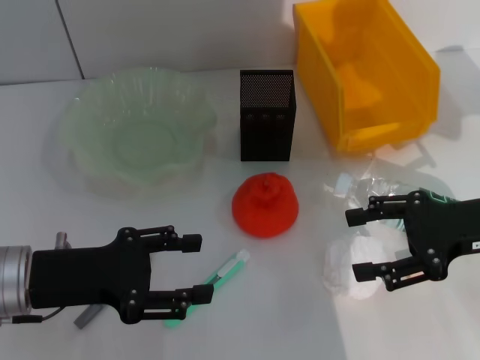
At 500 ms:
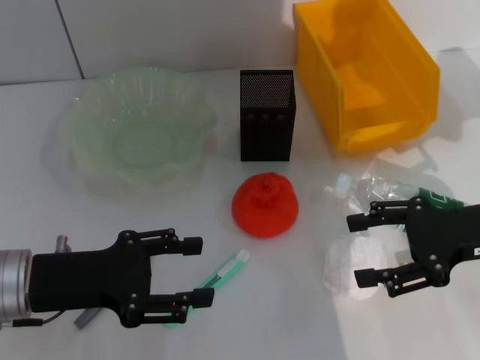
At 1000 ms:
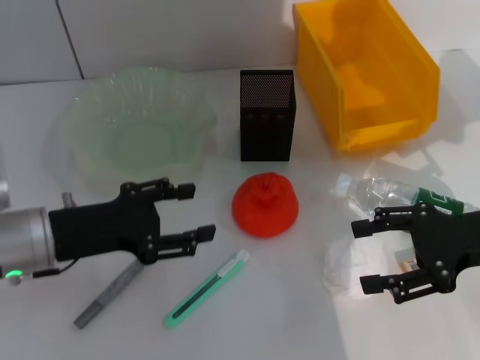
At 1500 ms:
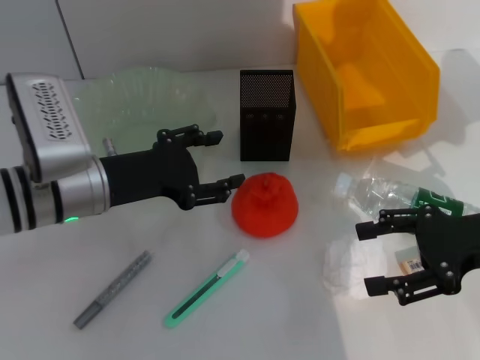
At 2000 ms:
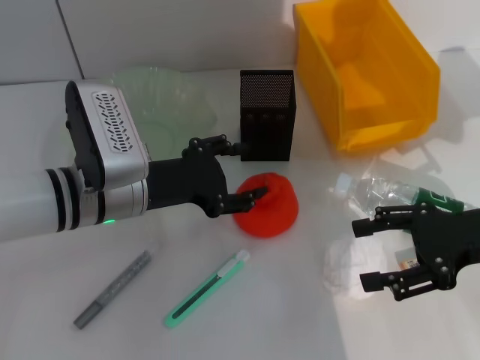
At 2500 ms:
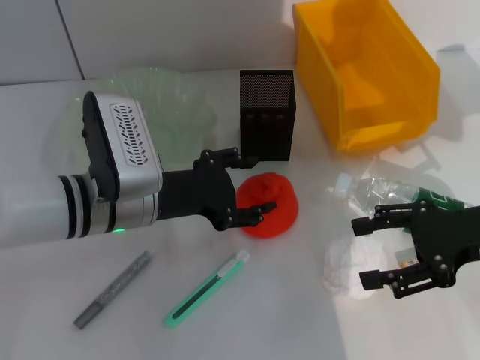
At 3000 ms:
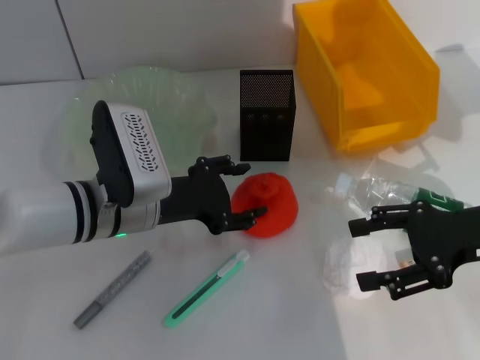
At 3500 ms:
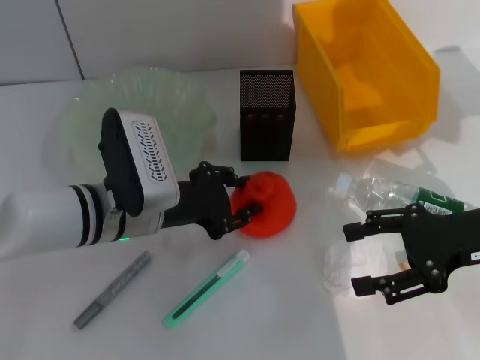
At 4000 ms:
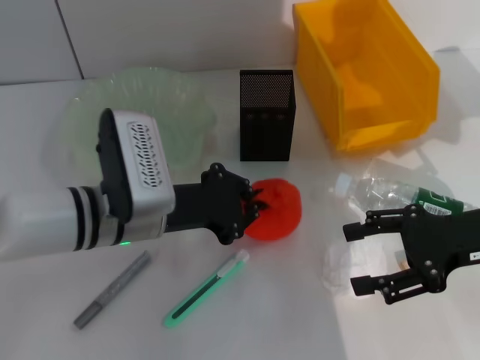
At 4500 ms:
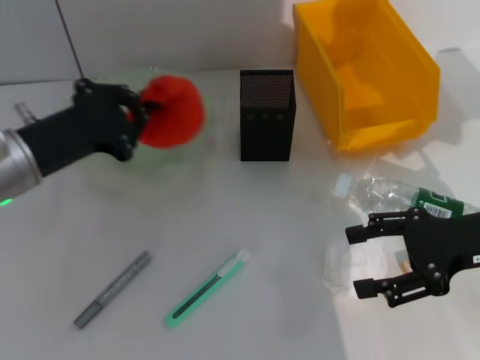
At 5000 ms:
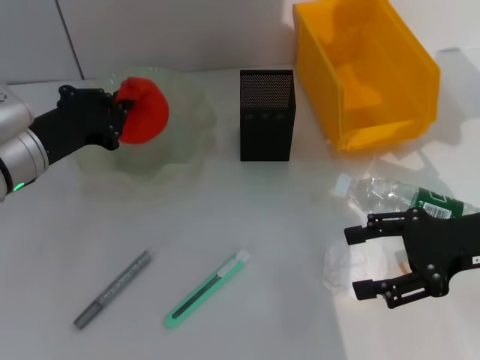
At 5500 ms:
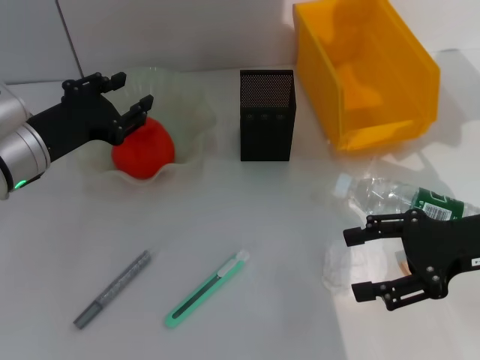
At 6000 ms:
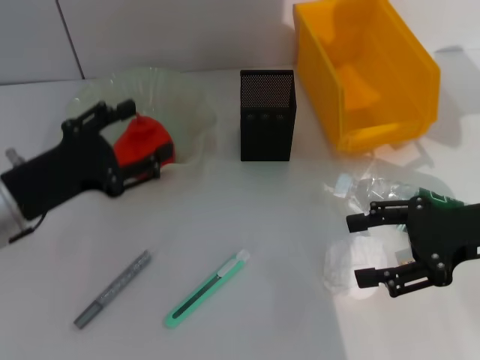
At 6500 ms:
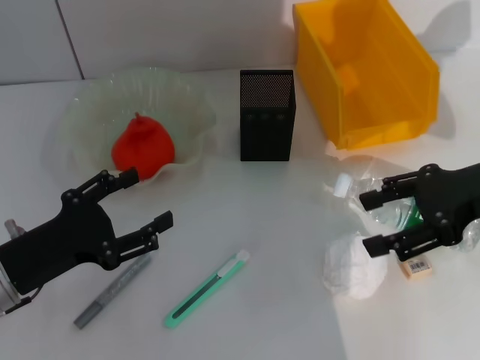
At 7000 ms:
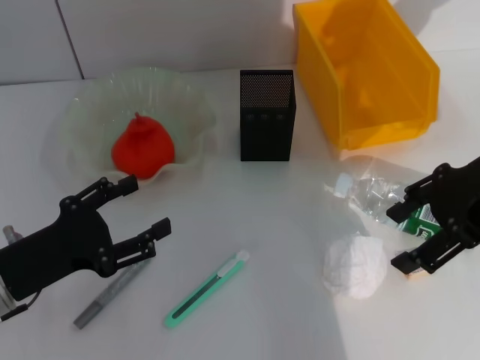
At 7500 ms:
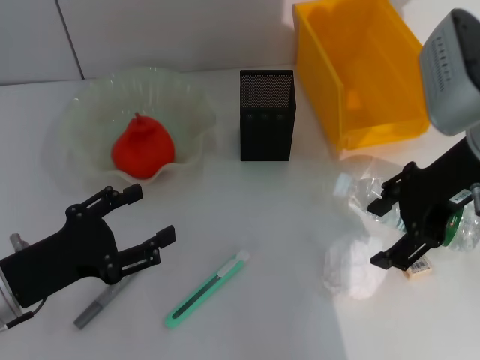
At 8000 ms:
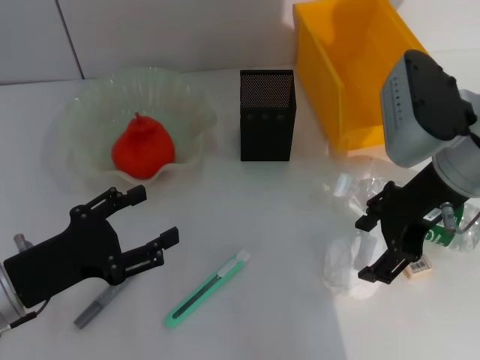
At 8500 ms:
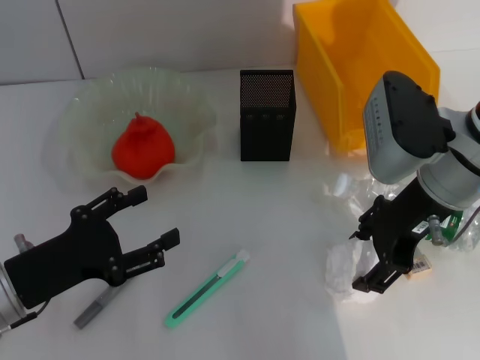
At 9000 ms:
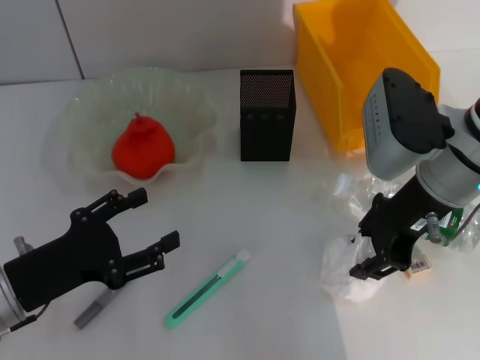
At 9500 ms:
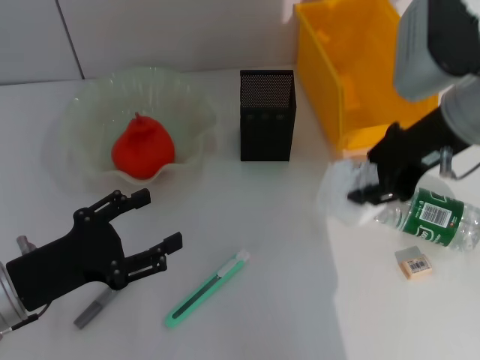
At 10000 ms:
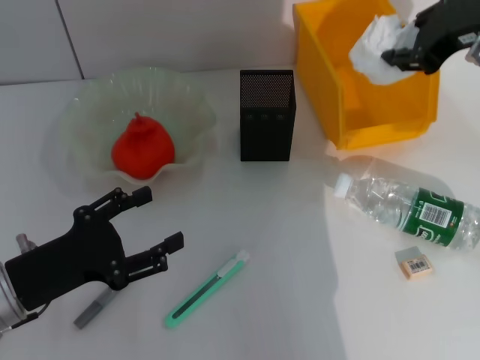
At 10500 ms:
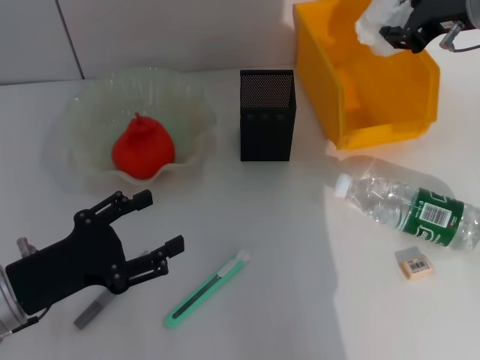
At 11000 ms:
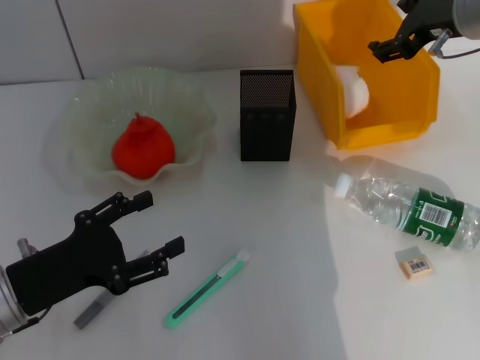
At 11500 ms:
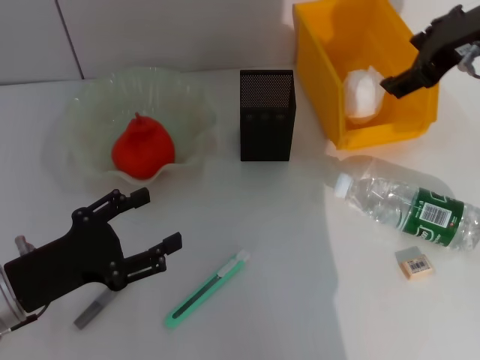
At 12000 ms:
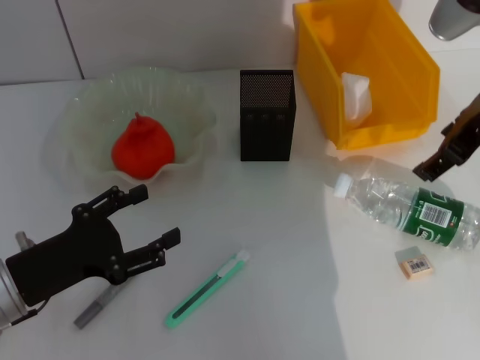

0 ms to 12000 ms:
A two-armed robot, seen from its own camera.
Step, 0 ms to 3500 ms: Grab the orange with the left hand.
Step, 4000 ms to 5000 ms: Place the orange into the fruit bowl with the left hand.
Step, 5500 ms to 8500 ms: Grab the paper ball with the right hand.
Step, 9000 ms to 11000 ms: Place the paper ball into the trash can with the right hand.
0 ms to 2000 ms: The left gripper heads to the right and forward, covering about 10 cm.
2000 ms to 4000 ms: The left gripper closes.
4000 ms to 6000 ms: The left gripper moves to the left, about 10 cm, and opens its fingers.
6000 ms to 8000 ms: The right gripper is displaced to the left, upward and forward by roughly 10 cm. The left gripper shifts some 5 cm backward.
8000 ms to 10000 ms: The right gripper heads upward and forward, covering about 10 cm, and closes its fingers.
10000 ms to 12000 ms: The right gripper opens.

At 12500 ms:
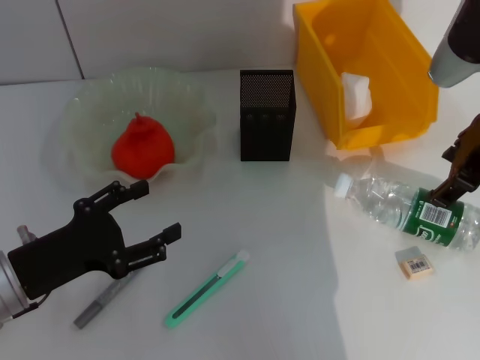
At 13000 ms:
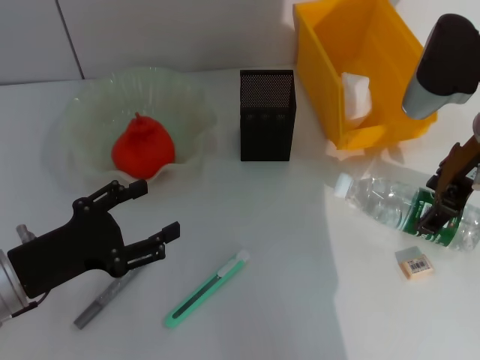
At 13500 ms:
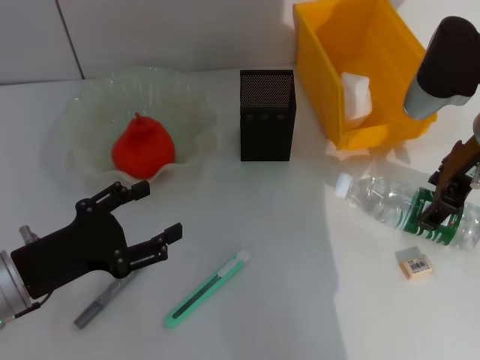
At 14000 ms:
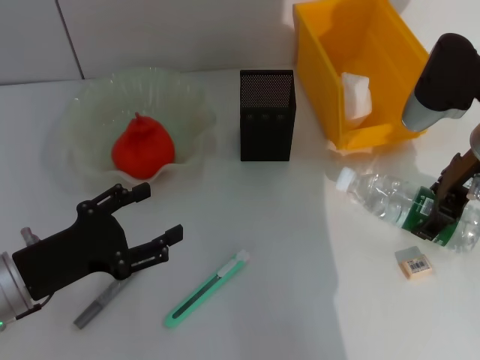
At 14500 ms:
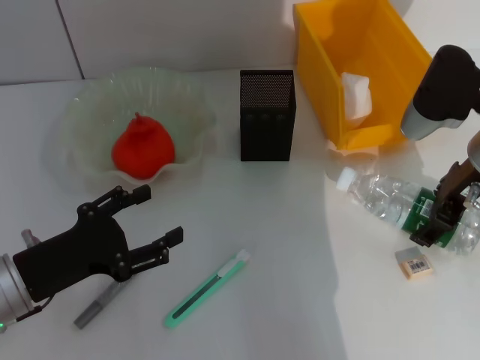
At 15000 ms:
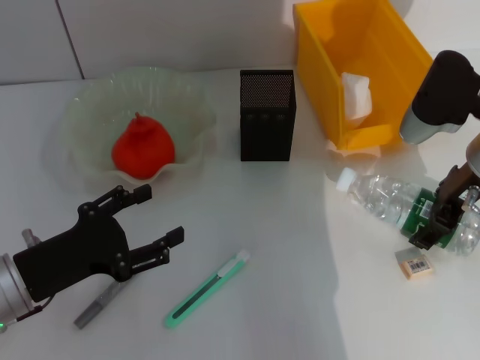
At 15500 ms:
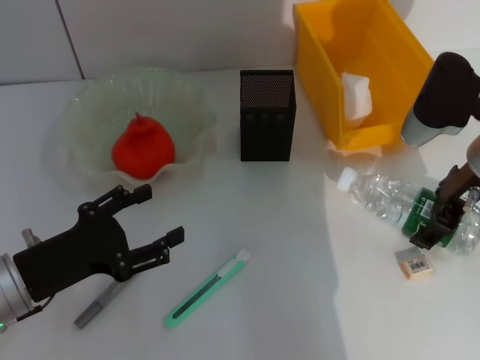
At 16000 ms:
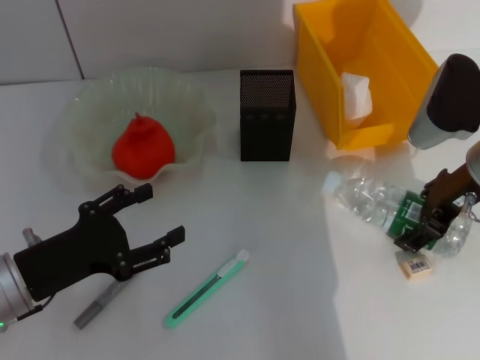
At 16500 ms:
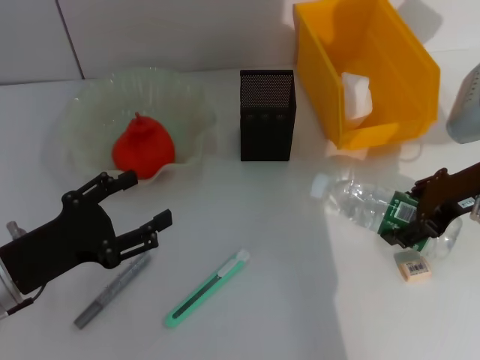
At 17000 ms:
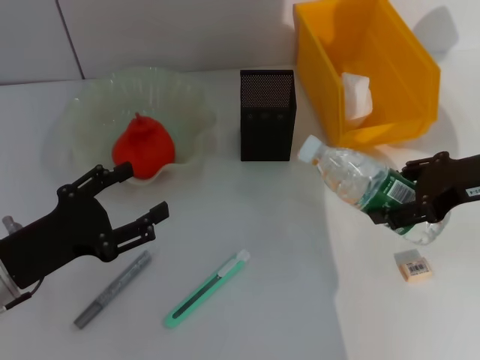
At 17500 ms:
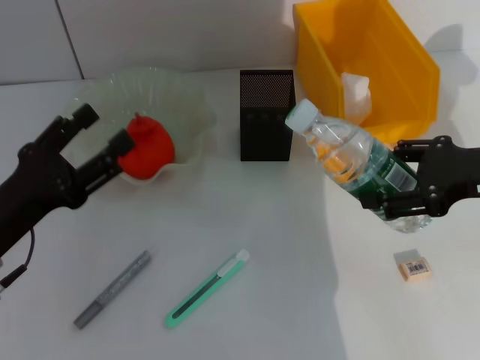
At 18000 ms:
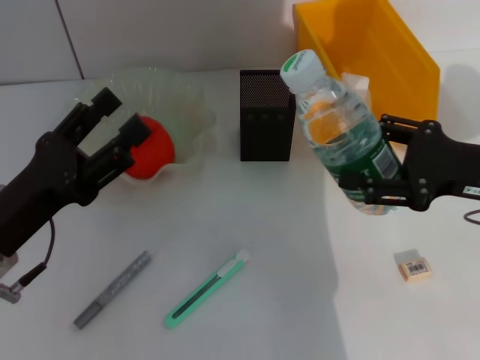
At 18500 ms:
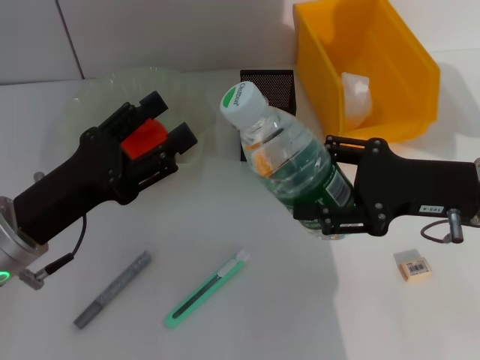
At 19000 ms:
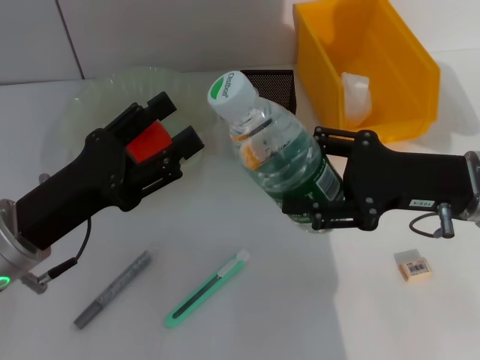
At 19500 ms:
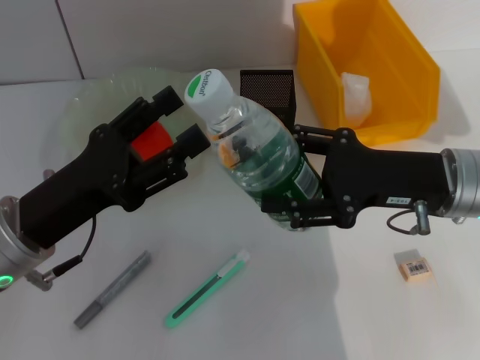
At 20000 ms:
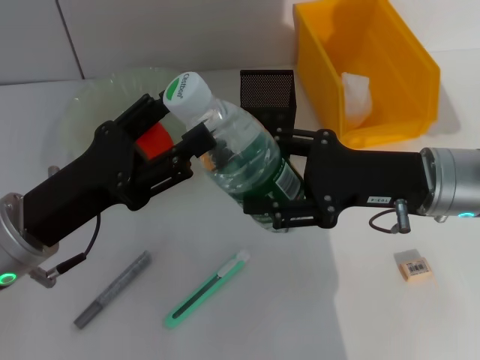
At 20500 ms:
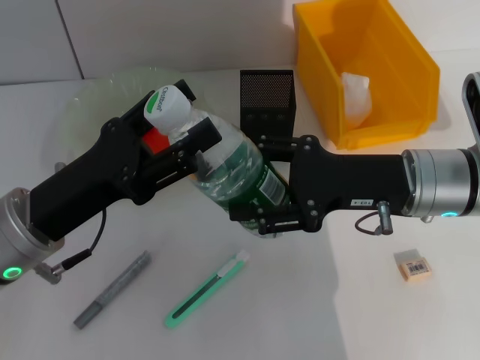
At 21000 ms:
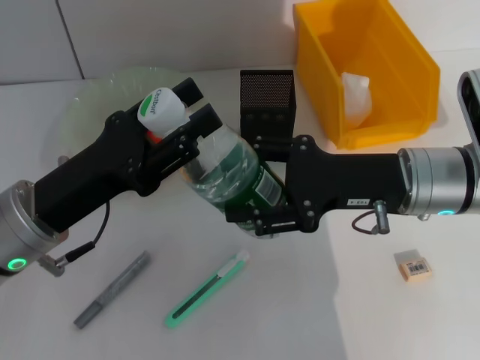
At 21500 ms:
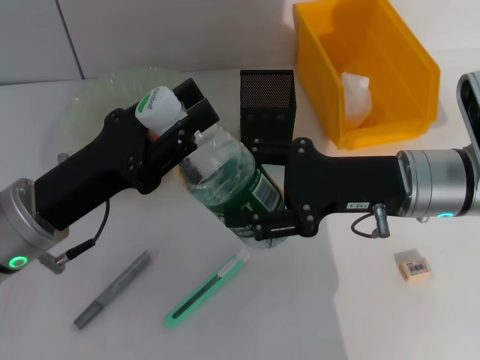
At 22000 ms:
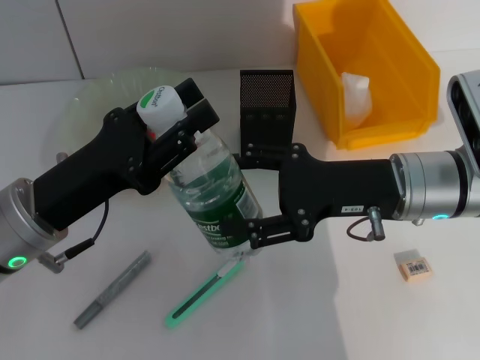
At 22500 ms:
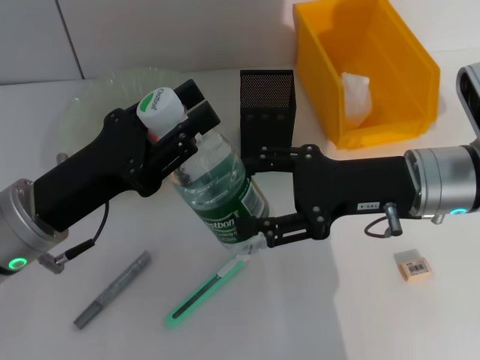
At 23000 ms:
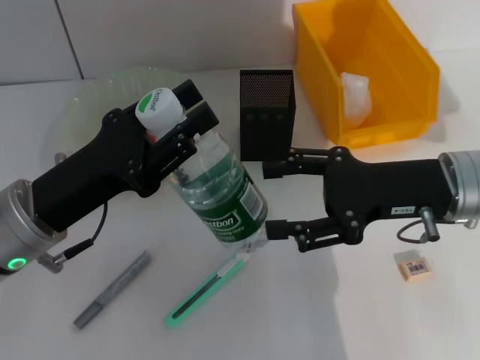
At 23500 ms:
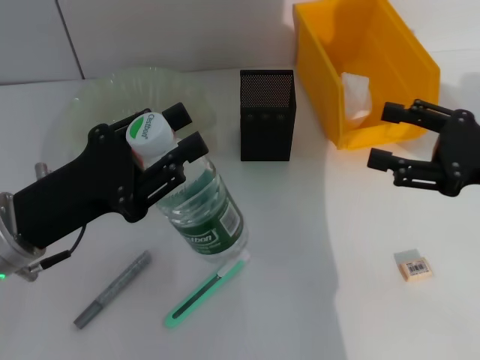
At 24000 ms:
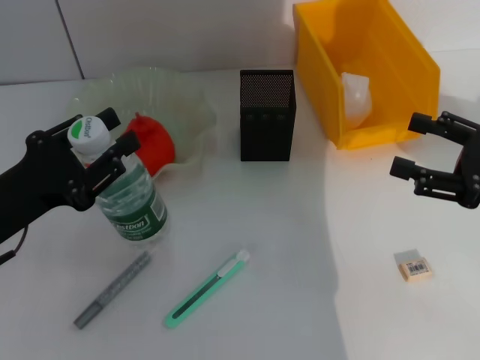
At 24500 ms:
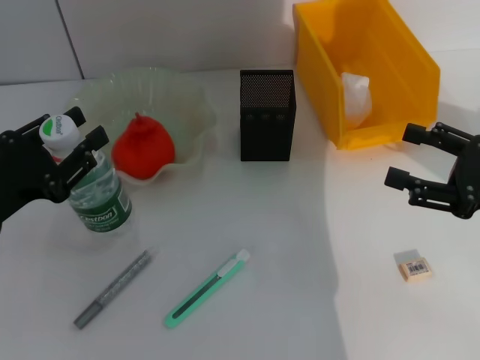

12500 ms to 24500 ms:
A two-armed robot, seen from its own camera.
Step, 12500 ms to 15500 ms: Grab the water bottle with the right hand.
Step, 16500 ms to 22500 ms: Pass the water bottle from the right hand to the left hand.
12500 ms to 14500 ms: The right gripper heads downward, covering approximately 5 cm.
16500 ms to 18500 ms: The left gripper ends up approximately 5 cm from where it was. Meanwhile the right gripper ends up roughly 5 cm from where it was.
18500 ms to 20500 ms: The right gripper shifts approximately 5 cm to the left.
20500 ms to 22500 ms: The left gripper closes.
22500 ms to 24500 ms: The left gripper shifts about 10 cm to the left. Meanwhile the right gripper goes approximately 15 cm to the right and backward.

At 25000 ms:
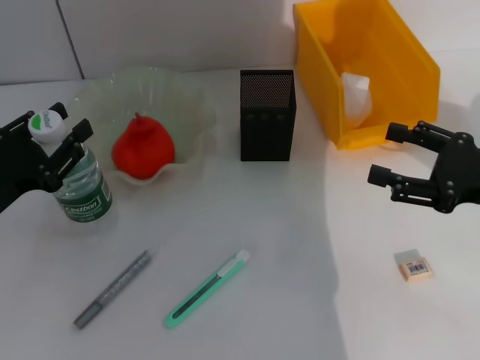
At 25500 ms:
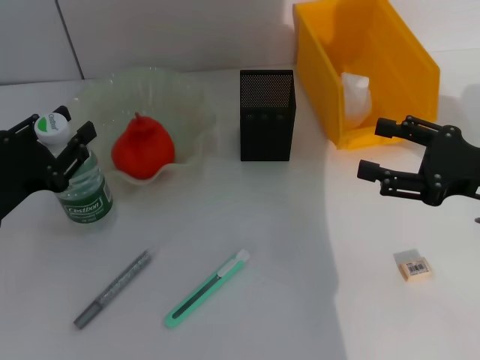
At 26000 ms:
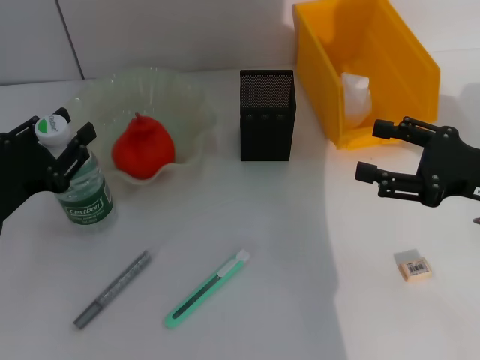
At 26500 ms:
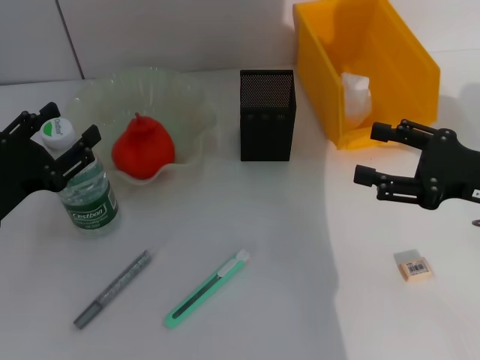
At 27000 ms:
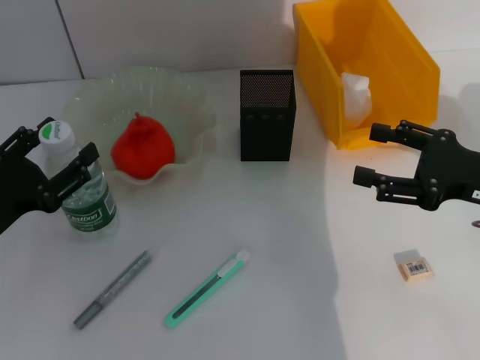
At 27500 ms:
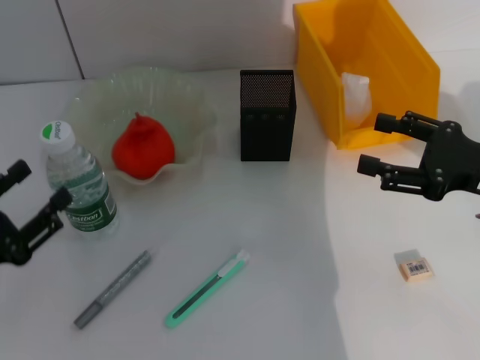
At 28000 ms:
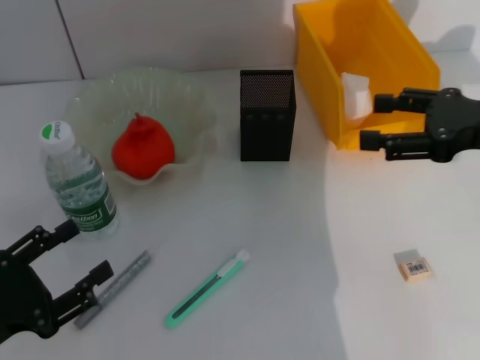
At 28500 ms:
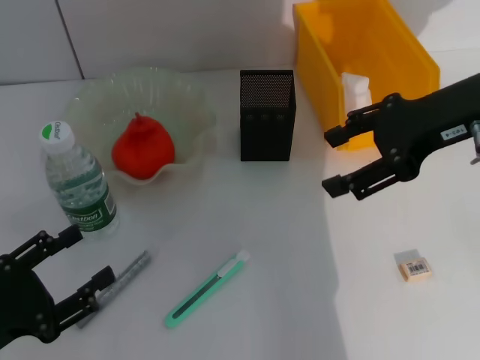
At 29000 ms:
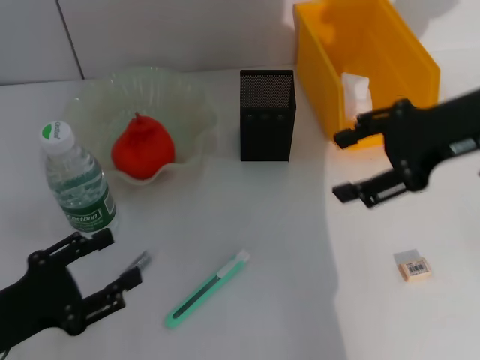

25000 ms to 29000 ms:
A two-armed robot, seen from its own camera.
Step, 25000 ms to 27000 ms: Place the water bottle on the table with the left hand.
25000 ms to 27000 ms: The left gripper opens.
27000 ms to 29000 ms: The left gripper shifts approximately 10 cm backward; the right gripper moves upward, to the left and forward, about 15 cm.
